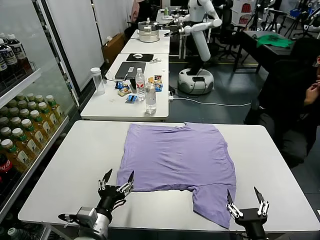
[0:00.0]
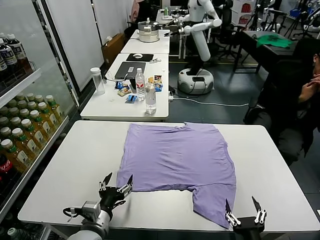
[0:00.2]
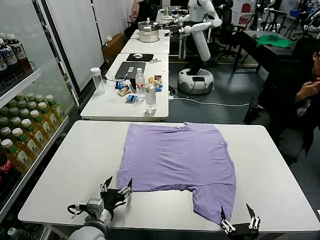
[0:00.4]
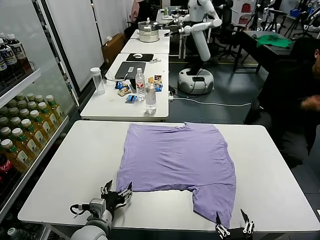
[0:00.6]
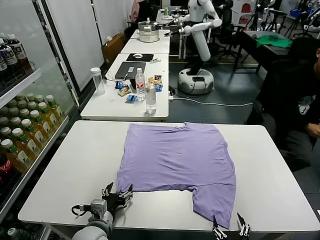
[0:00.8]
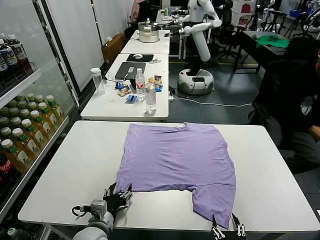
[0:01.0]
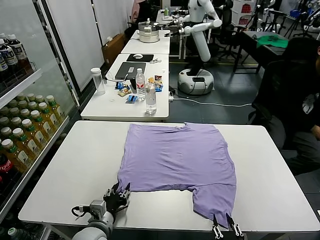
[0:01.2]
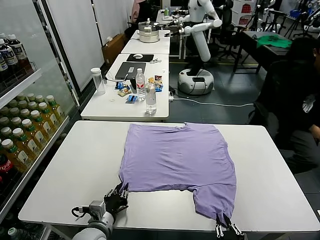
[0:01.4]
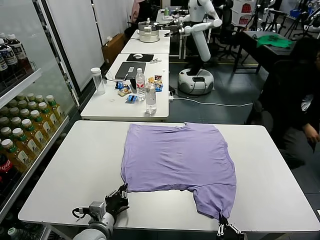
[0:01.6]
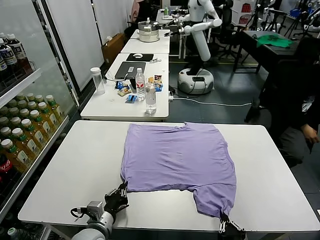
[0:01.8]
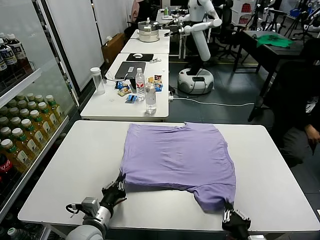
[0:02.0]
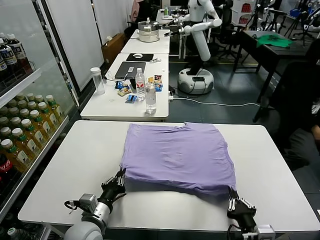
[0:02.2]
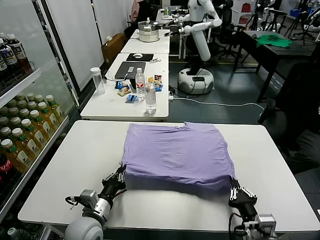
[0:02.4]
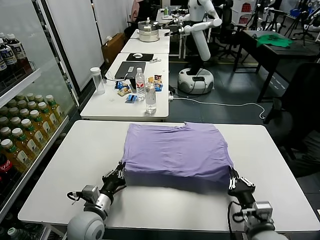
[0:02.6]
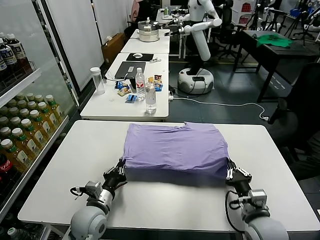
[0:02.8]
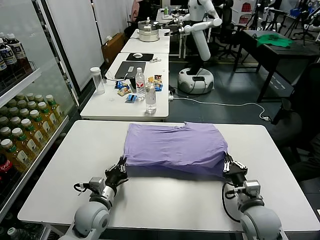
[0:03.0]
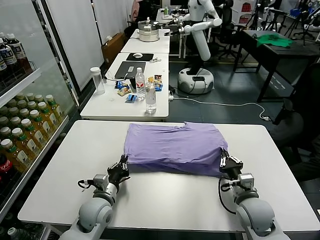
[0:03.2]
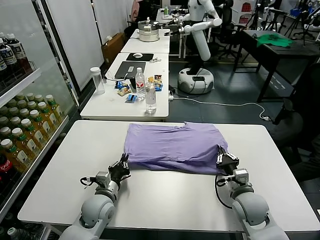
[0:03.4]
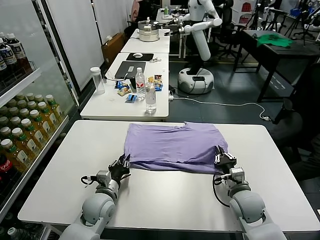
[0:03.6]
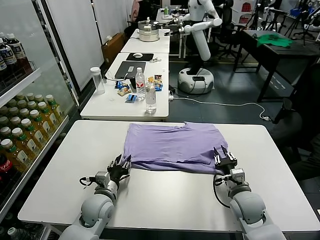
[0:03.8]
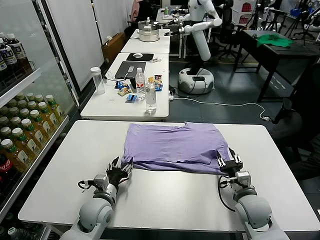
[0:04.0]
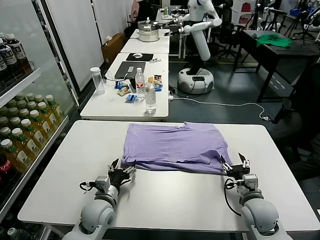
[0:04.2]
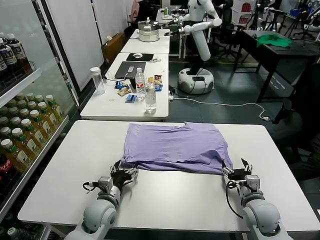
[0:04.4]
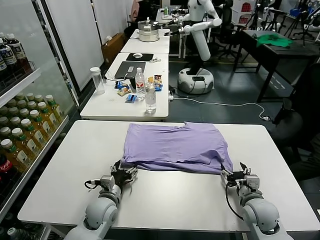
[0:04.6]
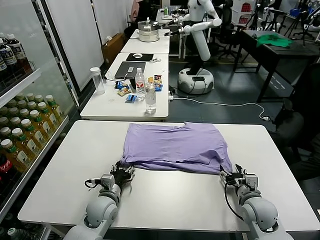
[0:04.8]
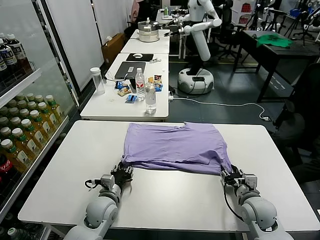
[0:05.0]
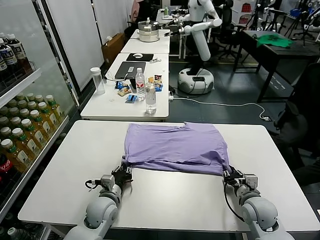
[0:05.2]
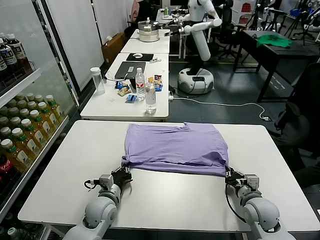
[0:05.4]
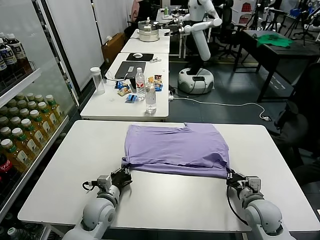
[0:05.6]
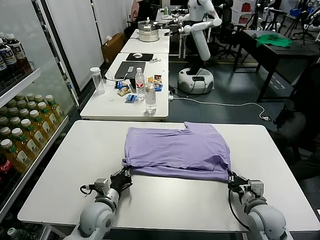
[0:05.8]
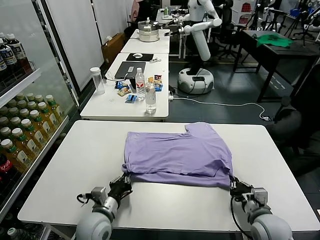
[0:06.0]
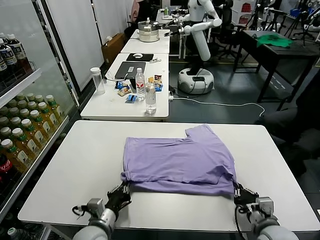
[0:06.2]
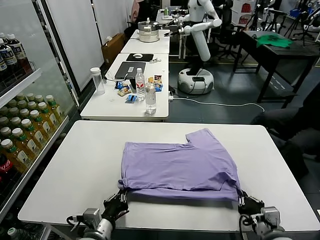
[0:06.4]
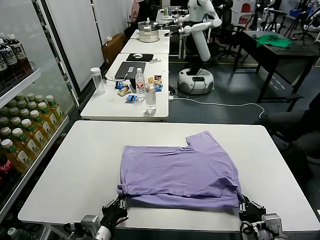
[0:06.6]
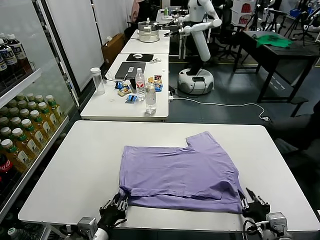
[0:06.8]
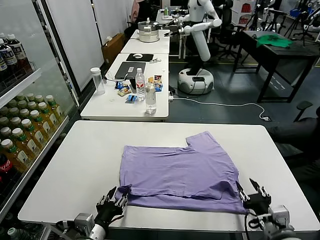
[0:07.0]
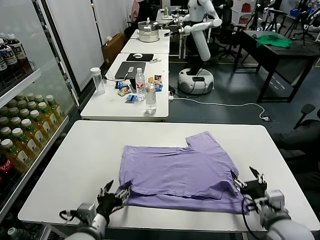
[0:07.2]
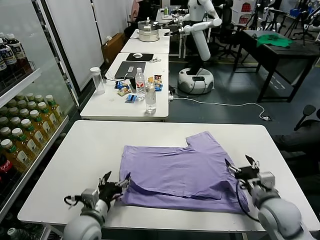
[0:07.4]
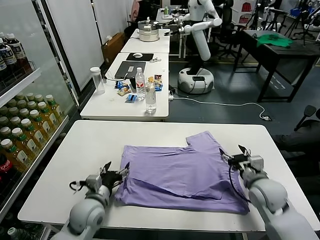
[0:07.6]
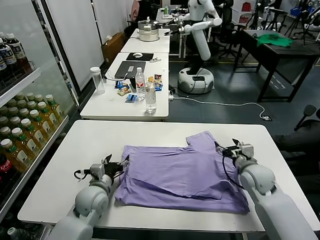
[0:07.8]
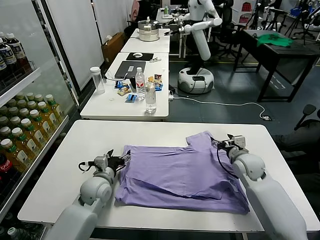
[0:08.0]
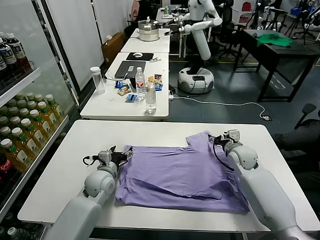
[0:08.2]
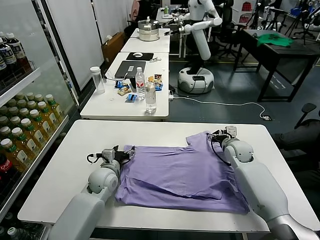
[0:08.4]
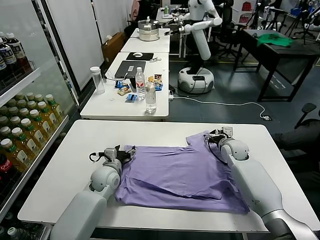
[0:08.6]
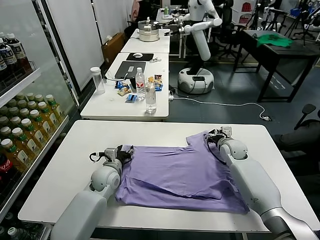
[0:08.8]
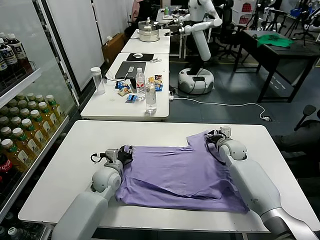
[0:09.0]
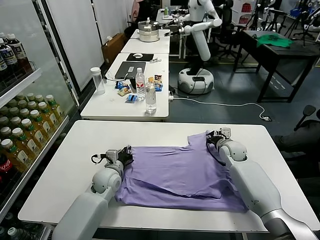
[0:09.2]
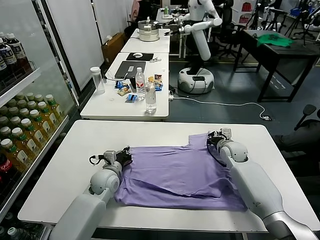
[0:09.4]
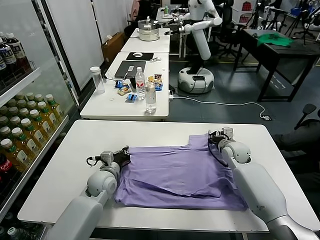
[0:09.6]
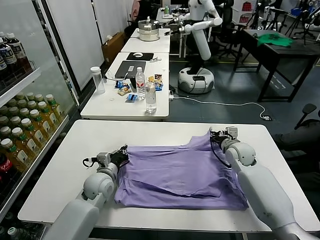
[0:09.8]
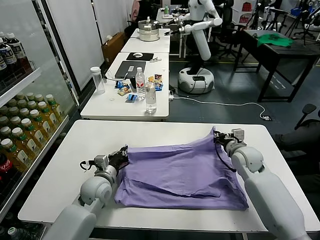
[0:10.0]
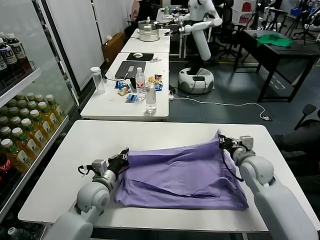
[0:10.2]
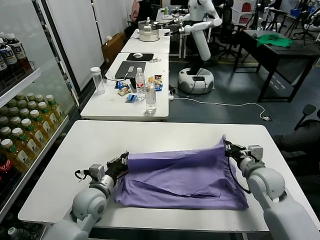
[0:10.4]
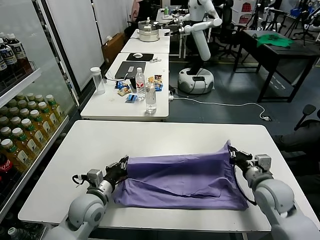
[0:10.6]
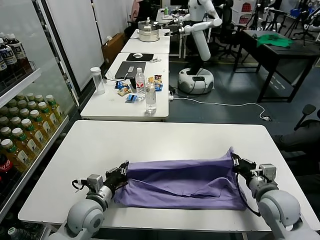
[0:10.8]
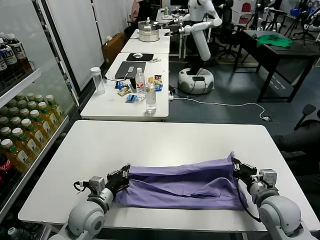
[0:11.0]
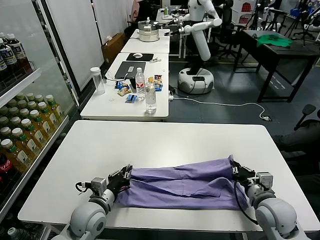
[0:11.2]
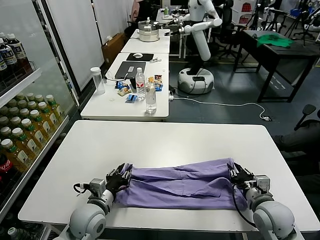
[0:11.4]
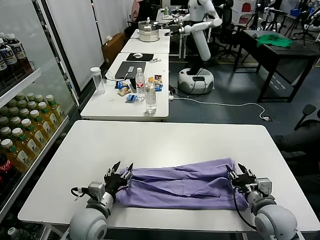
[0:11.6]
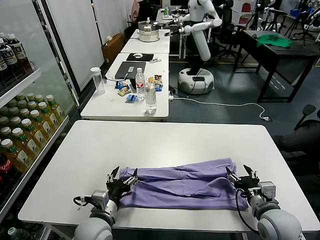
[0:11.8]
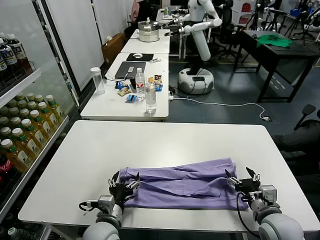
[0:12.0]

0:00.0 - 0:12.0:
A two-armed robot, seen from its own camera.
Task of the whole recording: fold and organize the clothes.
Step, 0:00.0 - 0:01.8: use both grippers simultaneously to clamp the lower edge of the clothing fabric.
Step, 0:02.0 - 0:03.8: use both grippers to drag the lower edge of the fabric forward and fold it over the upper edge.
Step, 0:04.0 - 0:07.0: Drag the clothes downward with both gripper.
Step, 0:07.4 - 0:09.4: use both grippers simultaneously to clamp the upper edge of the clothing fabric.
Step, 0:09.6 - 0:11.6: use both grippers to drag the upper edge of the fabric backward and fold it over the lower edge.
0:01.6 - 0:03.0: The right gripper shifts approximately 20 cm forward, while the left gripper shifts roughly 10 cm forward.
0:03.0 - 0:04.4: The left gripper opens its fingers. Meanwhile the right gripper opens up.
0:04.4 - 0:06.0: Both grippers travel together backward, about 5 cm. The right gripper closes. The left gripper closes up.
0:06.0 - 0:07.6: The right gripper heads forward, covering about 15 cm, and opens up. The left gripper travels backward and back again, roughly 10 cm each way, and opens.
0:07.6 - 0:09.0: Both grippers travel together forward, approximately 15 cm. The right gripper closes up; the left gripper closes up.
0:09.0 - 0:10.4: The left gripper travels backward by approximately 10 cm, and closes its fingers. Meanwhile the right gripper travels backward by about 20 cm, and closes up.
0:10.4 - 0:12.0: The left gripper goes roughly 10 cm backward and to the right, and opens up, while the right gripper moves backward, about 10 cm, and opens up.

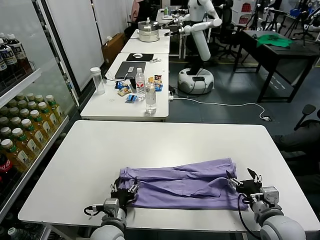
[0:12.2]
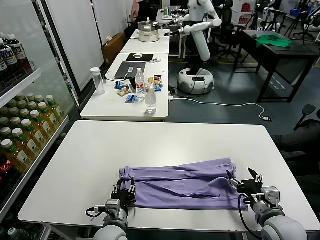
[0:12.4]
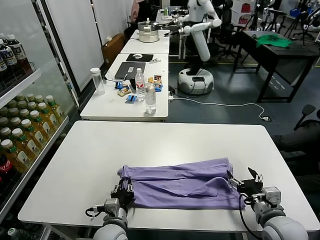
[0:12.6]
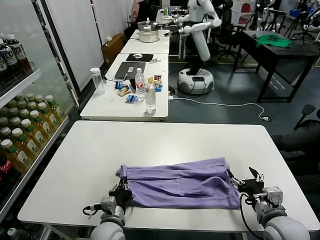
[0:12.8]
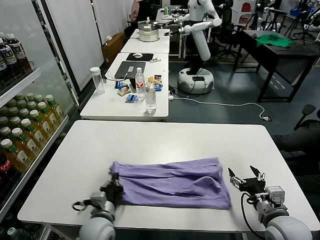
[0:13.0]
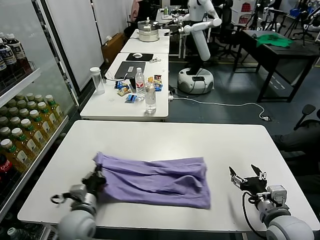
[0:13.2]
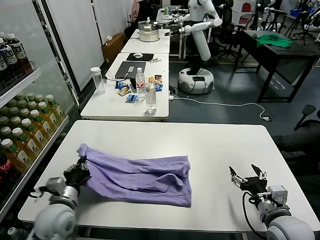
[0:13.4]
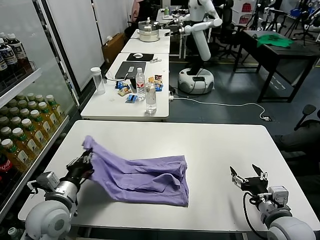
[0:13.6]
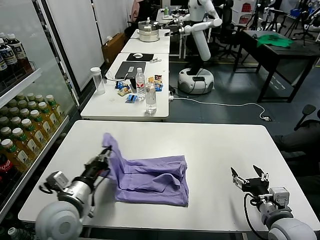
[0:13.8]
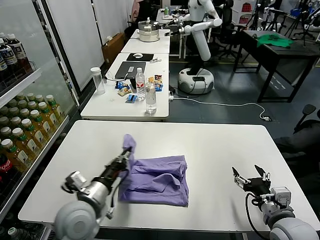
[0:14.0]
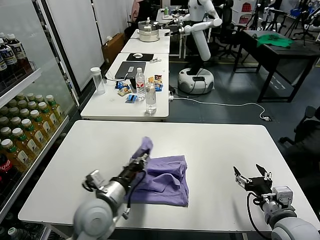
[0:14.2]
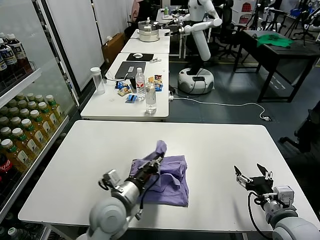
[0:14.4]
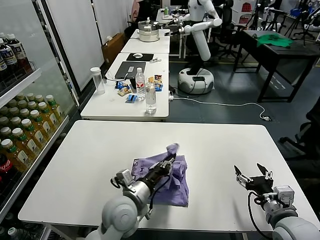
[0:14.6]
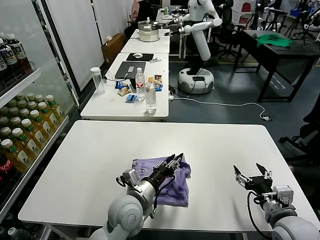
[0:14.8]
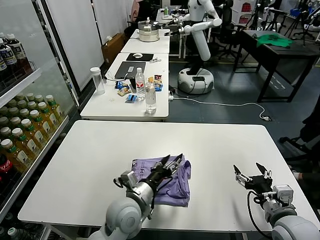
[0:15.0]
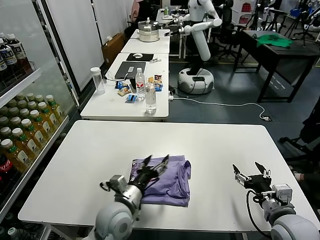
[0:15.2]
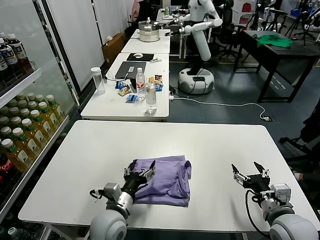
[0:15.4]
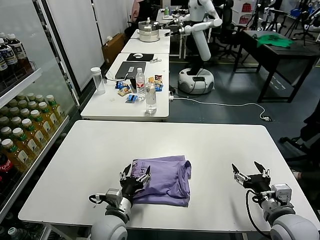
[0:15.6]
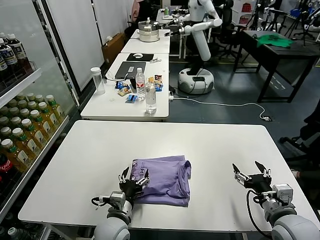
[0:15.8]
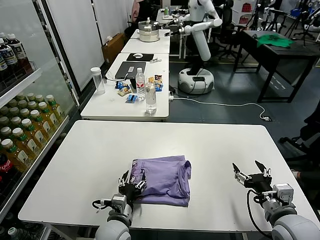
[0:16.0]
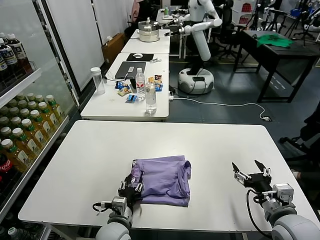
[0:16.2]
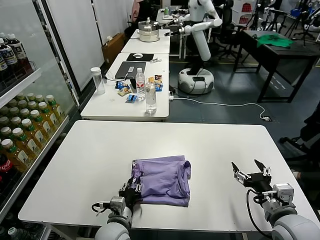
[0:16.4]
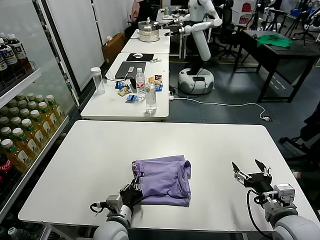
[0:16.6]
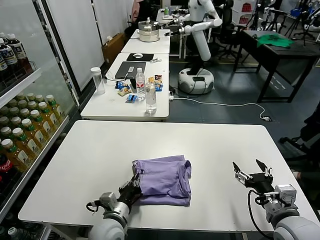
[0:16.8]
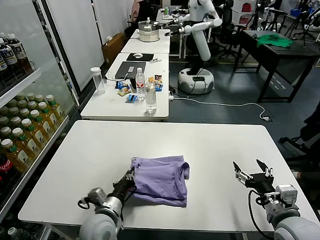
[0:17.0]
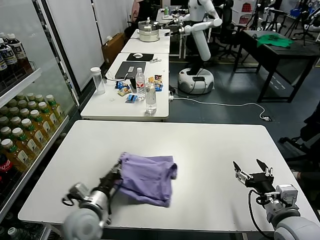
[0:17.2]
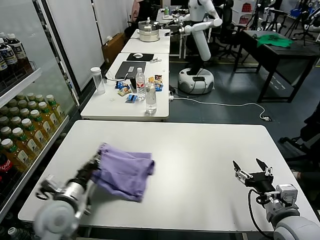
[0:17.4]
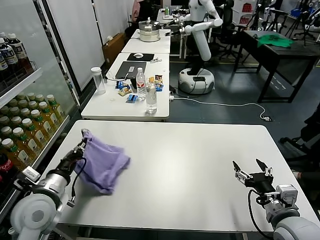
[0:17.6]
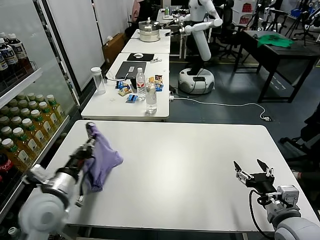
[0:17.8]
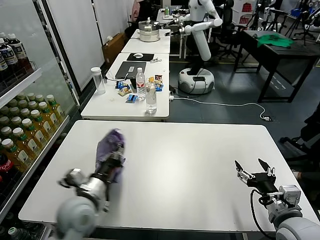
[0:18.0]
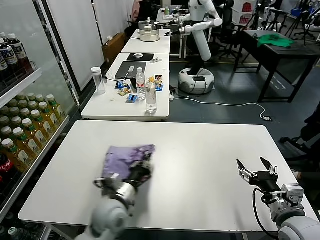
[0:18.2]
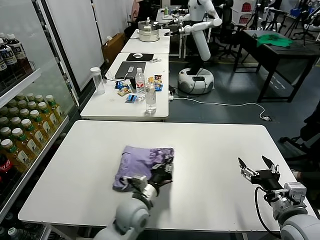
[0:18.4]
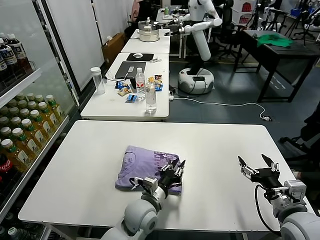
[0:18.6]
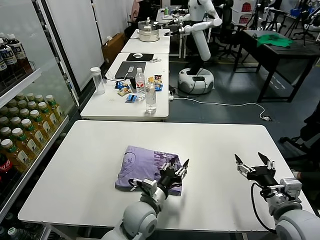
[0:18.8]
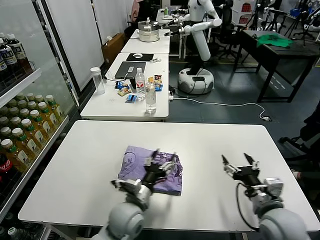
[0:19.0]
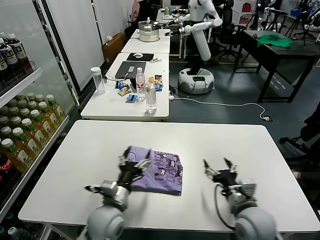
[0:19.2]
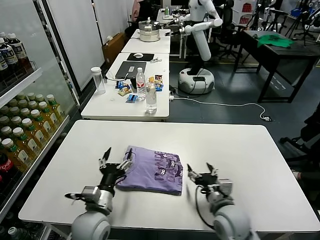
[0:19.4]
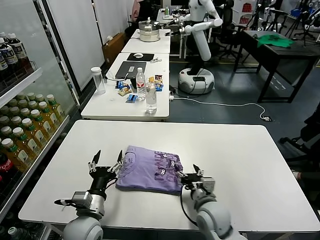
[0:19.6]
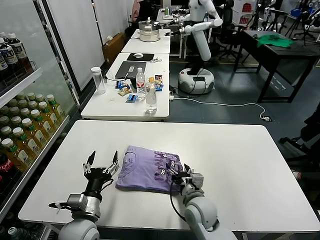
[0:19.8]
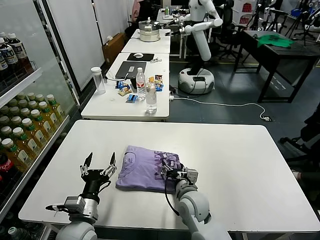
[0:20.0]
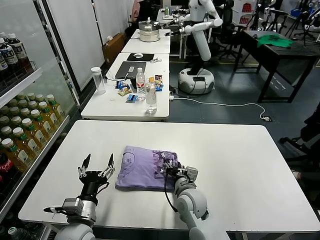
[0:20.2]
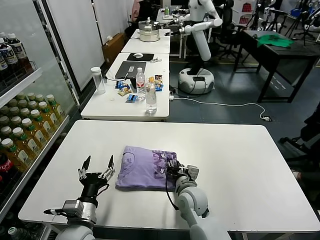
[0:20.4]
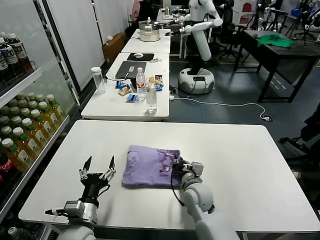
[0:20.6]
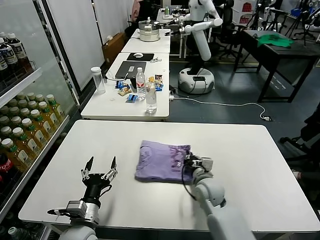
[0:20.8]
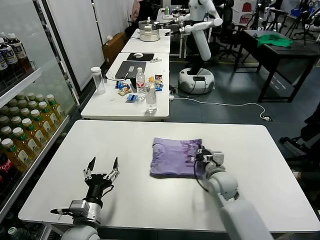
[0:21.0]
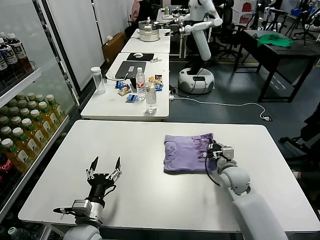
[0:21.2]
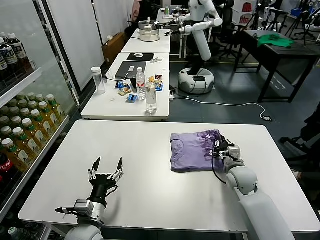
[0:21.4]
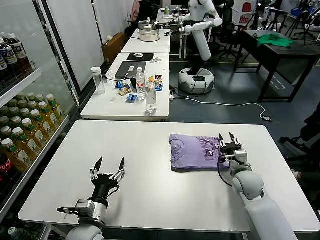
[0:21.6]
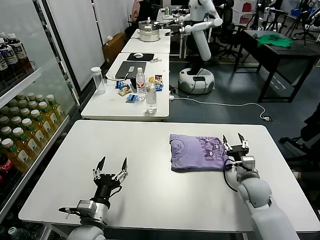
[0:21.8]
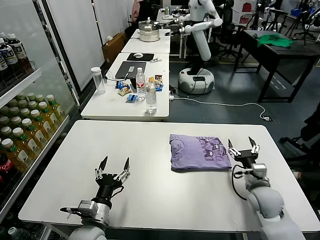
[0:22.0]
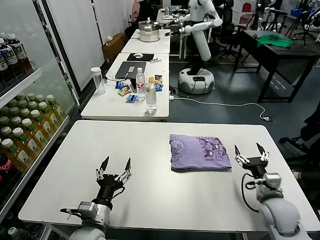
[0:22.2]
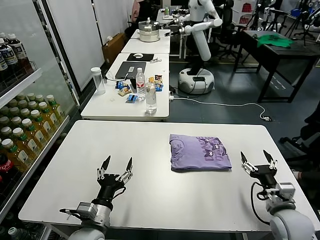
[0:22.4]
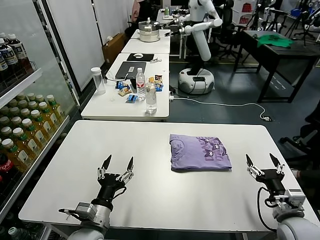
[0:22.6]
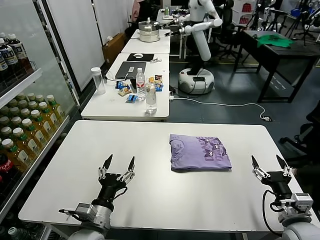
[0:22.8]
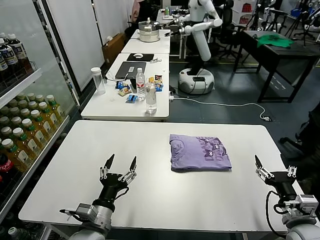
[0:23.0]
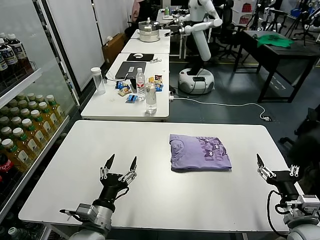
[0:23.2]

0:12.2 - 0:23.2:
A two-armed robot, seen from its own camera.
Task of the whole recording: fold and organize the clothes.
Step, 0:12.2 - 0:12.8: use the left gripper to clamp the left edge of the fabric.
Step, 0:13.0 - 0:15.0: use the left gripper to drag the left edge of the fabric to the left and folds it over the right edge.
Step, 0:15.2 - 0:19.0: Flip the folded clothes over with left gripper.
Step, 0:19.2 - 0:21.6: Drag the clothes to the center of the table.
0:12.2 - 0:13.8: The left gripper goes approximately 15 cm upward and to the left, and closes its fingers.
0:13.8 - 0:15.4: The left gripper shifts roughly 15 cm to the right and downward, and opens.
0:15.4 - 0:17.0: The left gripper closes up.
0:17.0 - 0:18.4: The left gripper travels to the left and back again, approximately 15 cm each way.
0:18.4 - 0:20.0: The right gripper moves to the left, forward and downward, about 30 cm; the left gripper shifts roughly 15 cm to the left and backward, and opens its fingers.
0:20.0 - 0:21.6: The right gripper travels to the right and forward by roughly 20 cm, and closes up.
0:21.6 - 0:23.2: The right gripper heads backward, covering about 20 cm, and opens.
